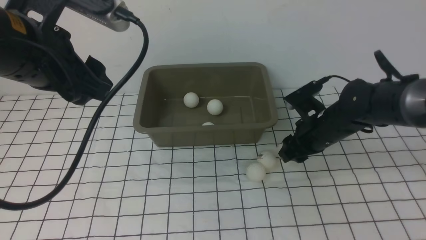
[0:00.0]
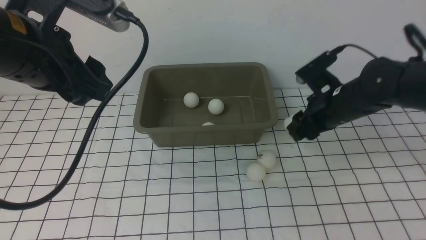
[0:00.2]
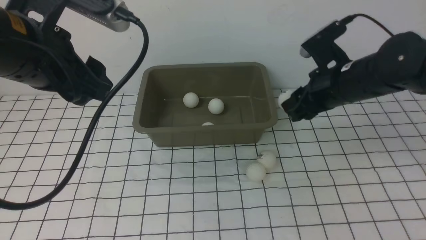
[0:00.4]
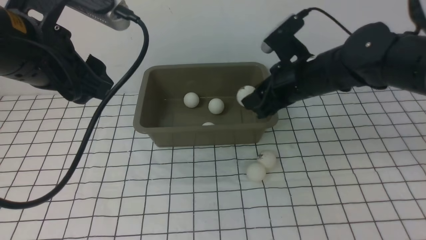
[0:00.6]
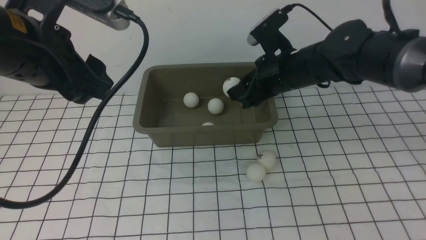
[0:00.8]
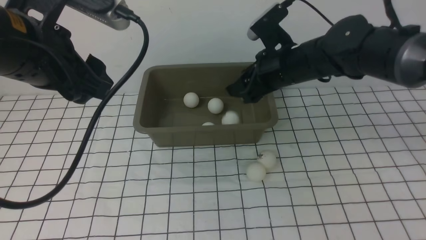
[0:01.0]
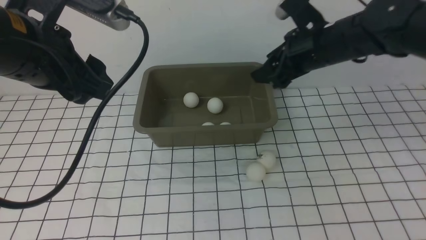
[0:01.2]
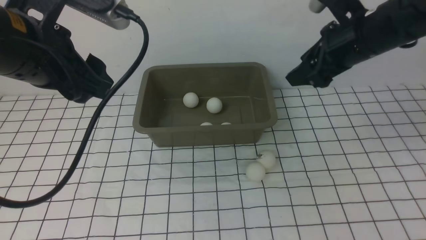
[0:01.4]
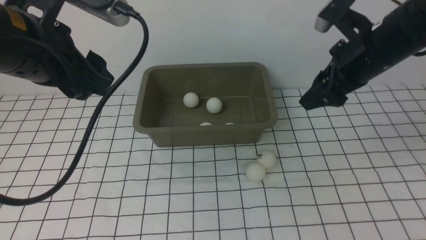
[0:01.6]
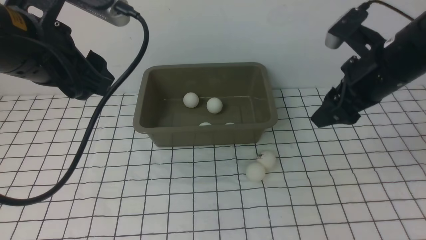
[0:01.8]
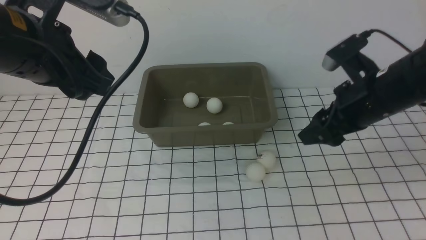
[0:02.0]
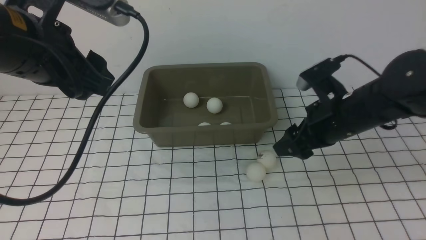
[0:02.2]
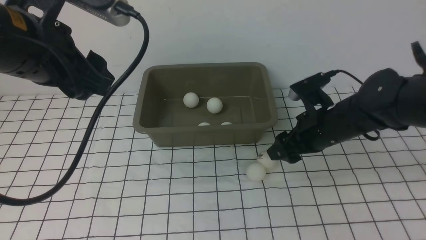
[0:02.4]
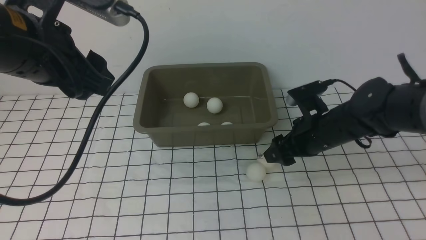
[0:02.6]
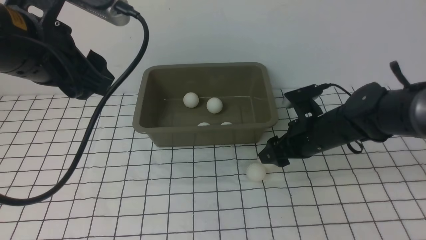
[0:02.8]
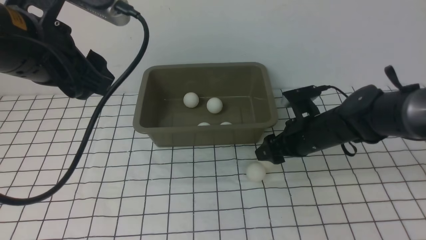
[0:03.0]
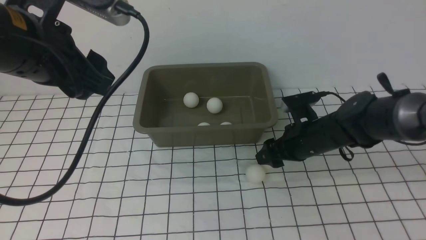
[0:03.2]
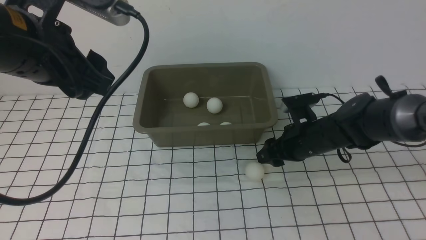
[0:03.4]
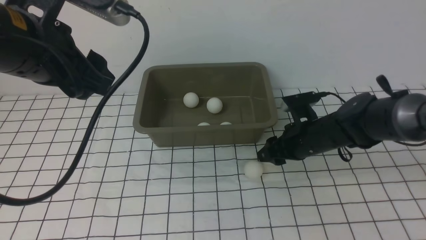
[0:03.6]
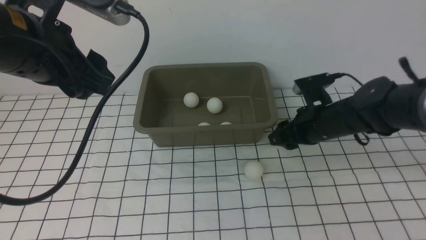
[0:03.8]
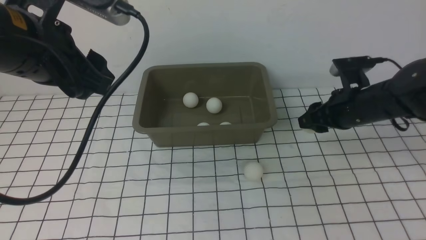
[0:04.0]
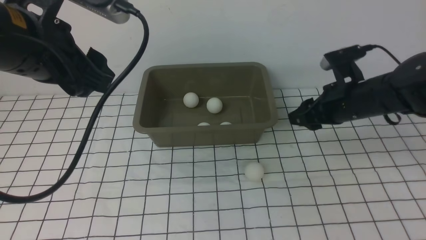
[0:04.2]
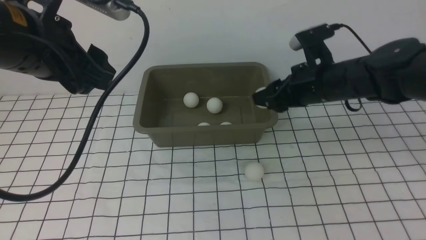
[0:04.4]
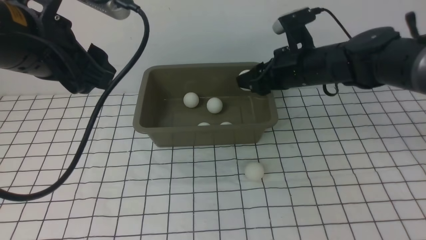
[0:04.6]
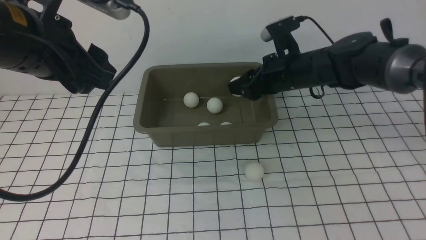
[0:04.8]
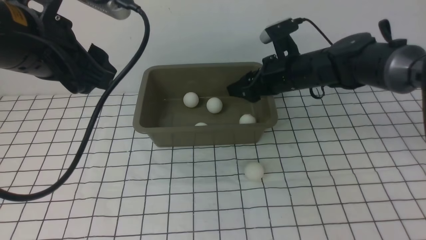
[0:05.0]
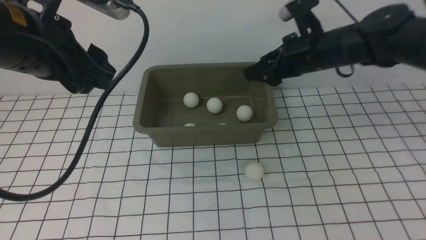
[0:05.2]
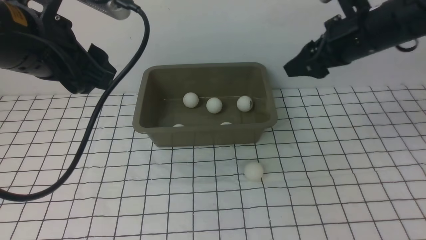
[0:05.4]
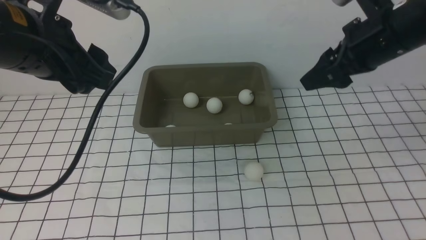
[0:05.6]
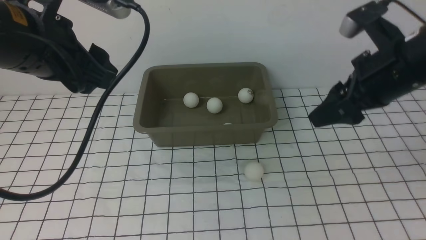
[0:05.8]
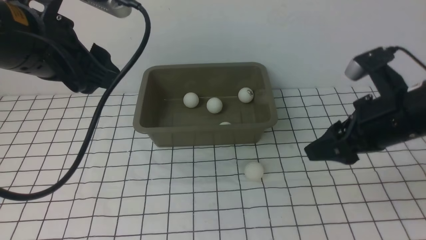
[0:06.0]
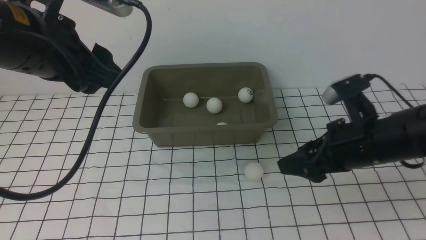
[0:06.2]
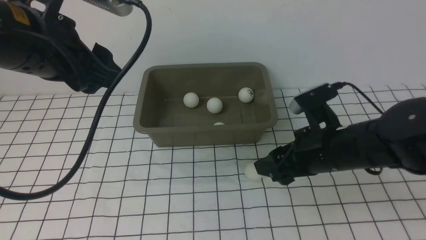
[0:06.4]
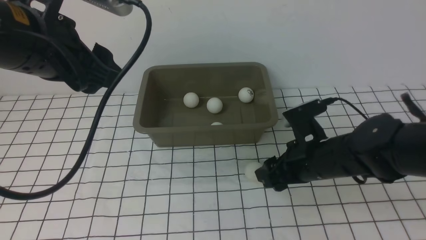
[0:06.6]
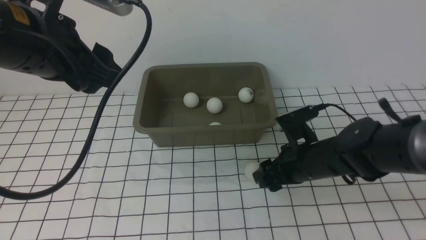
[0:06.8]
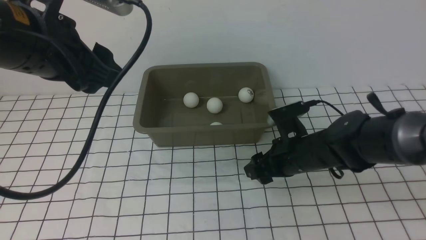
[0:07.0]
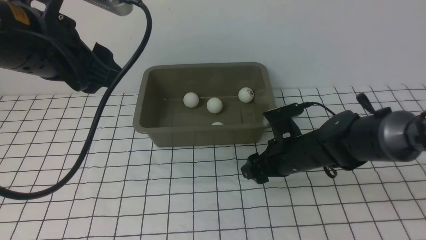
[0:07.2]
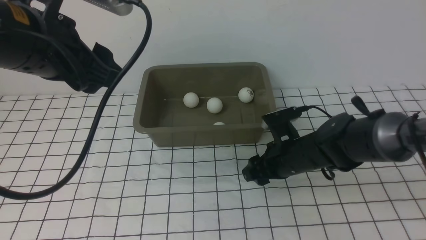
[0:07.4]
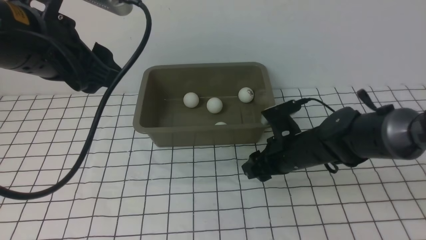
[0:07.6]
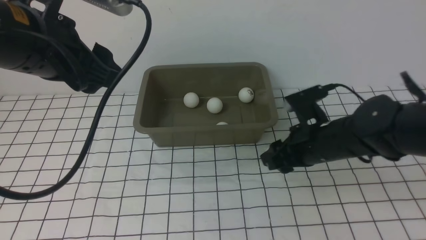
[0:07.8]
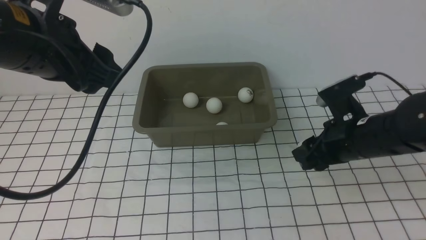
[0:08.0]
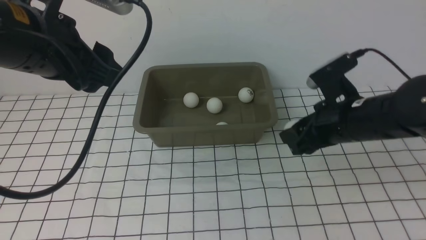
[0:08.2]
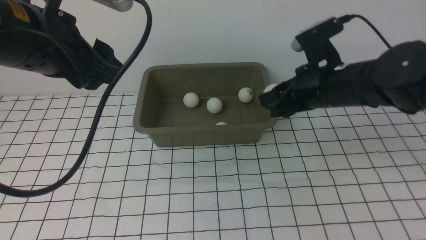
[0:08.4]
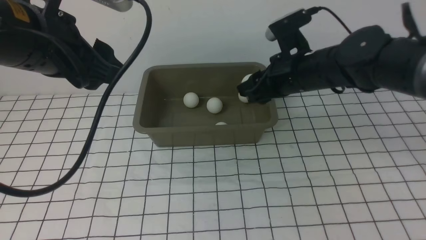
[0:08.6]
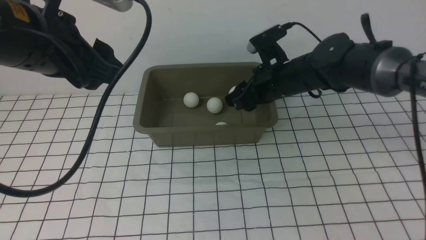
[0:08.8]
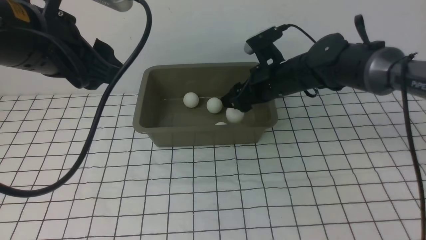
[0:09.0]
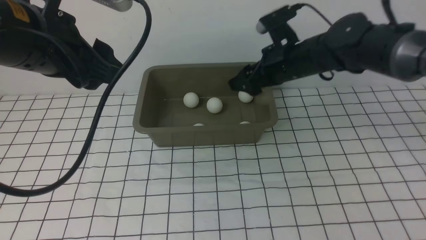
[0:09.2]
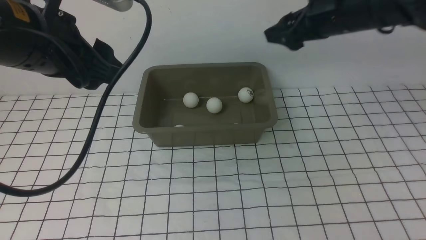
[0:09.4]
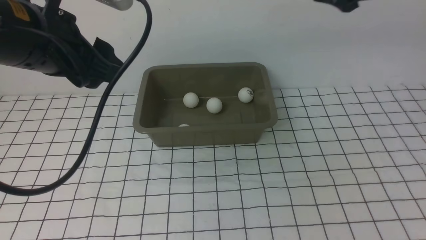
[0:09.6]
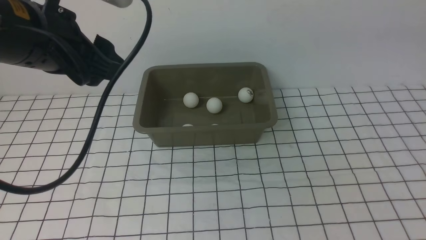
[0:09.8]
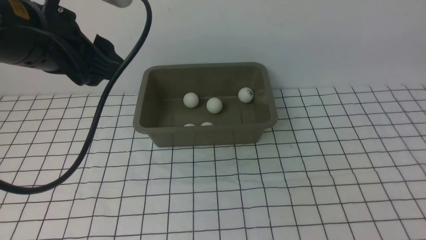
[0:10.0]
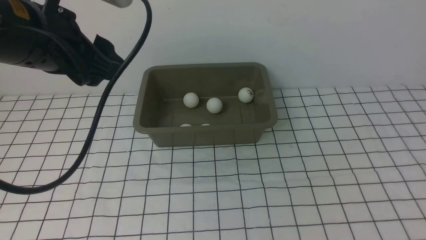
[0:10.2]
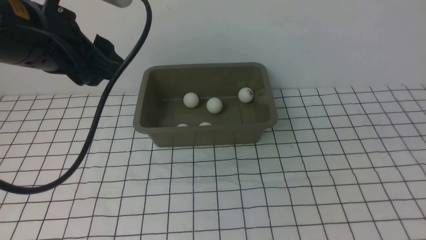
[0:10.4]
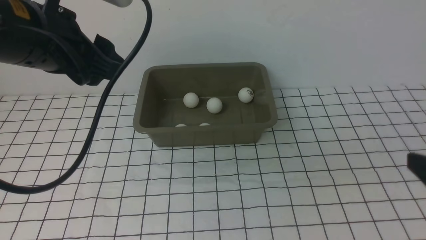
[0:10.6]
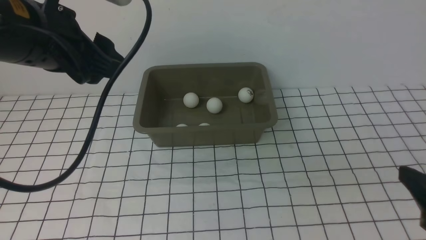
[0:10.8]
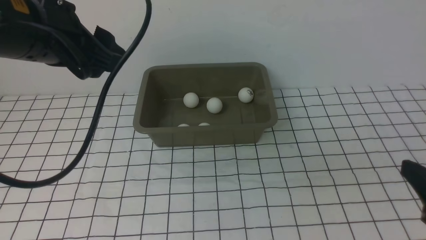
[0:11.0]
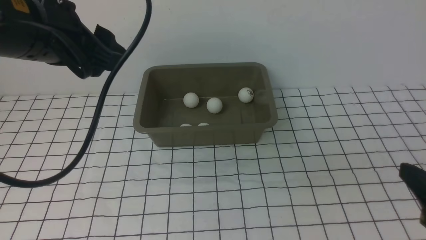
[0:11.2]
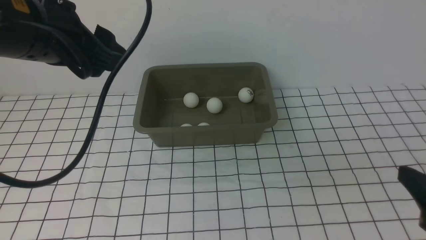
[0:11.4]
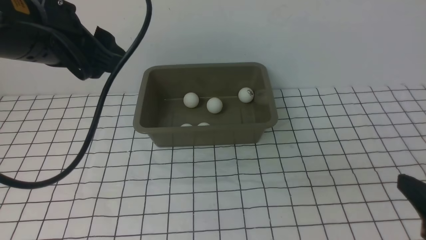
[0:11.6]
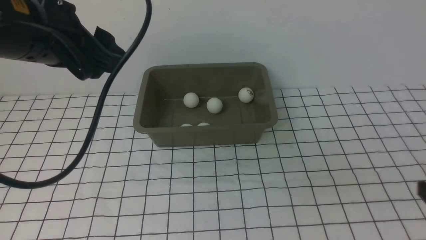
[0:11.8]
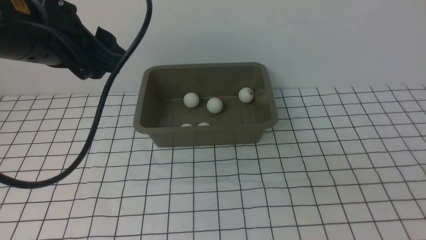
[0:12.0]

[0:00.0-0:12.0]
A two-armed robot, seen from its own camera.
Step, 0:00.4 to 0:01.0: use the right arm to put the table tennis ball into the box.
Step, 0:01.4 to 0:03.8: use the right arm to clamp the table tennis ball closest to it.
Step, 0:04.0 to 0:05.0: use the right arm to put the table tennis ball into the box.
Step, 0:05.2 to 0:07.6: use the right arm to clamp the table tennis ball closest to it.
Step, 0:08.0 to 0:09.0: use the right arm to put the table tennis ball into the box.
0:00.0 to 0:01.6: The right gripper moves upward, some 15 cm, and opens up.
0:01.6 to 0:03.0: The right gripper shifts roughly 15 cm downward.
0:03.0 to 0:04.4: The right gripper moves upward, roughly 10 cm, and closes up.
0:04.4 to 0:06.0: The right gripper is displaced backward and upward by approximately 10 cm, and opens up.
0:06.0 to 0:07.6: The right gripper goes roughly 15 cm downward and to the left, and closes its fingers.
0:07.6 to 0:09.0: The right gripper shifts approximately 15 cm forward and upward, and opens its fingers.
0:09.0 to 0:10.4: The right gripper goes about 35 cm backward, to the right and upward.

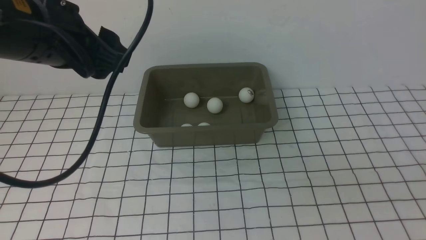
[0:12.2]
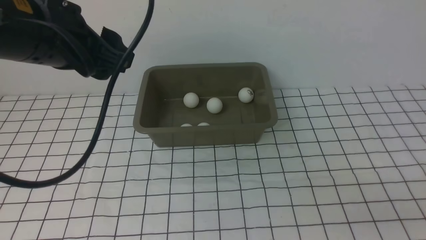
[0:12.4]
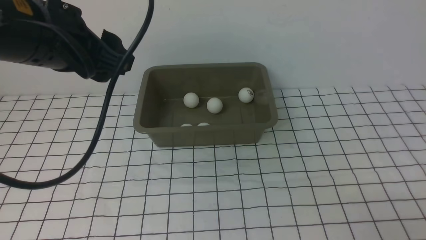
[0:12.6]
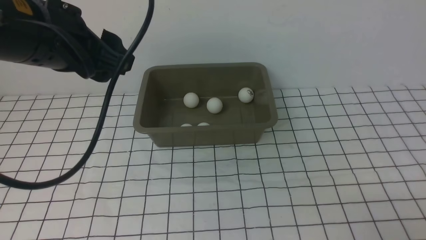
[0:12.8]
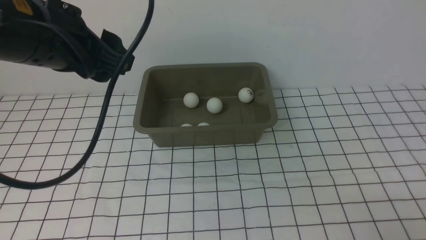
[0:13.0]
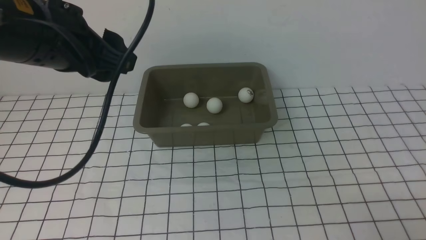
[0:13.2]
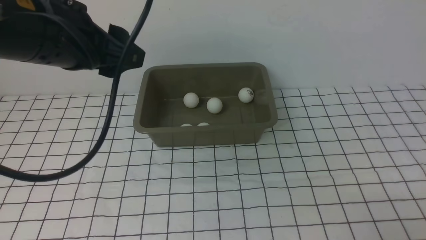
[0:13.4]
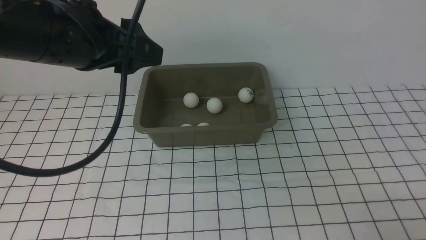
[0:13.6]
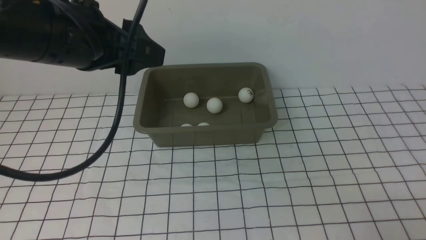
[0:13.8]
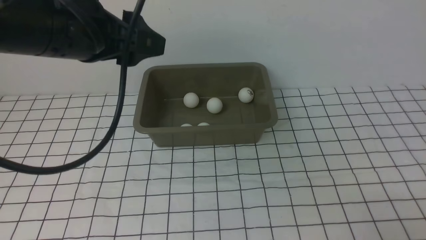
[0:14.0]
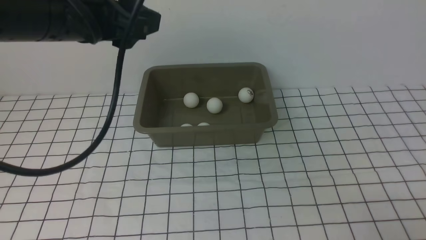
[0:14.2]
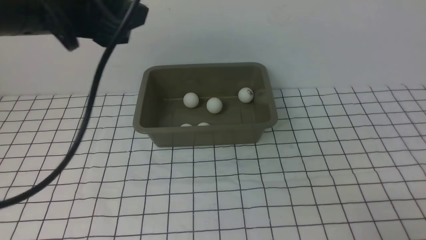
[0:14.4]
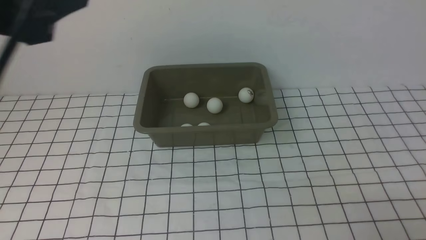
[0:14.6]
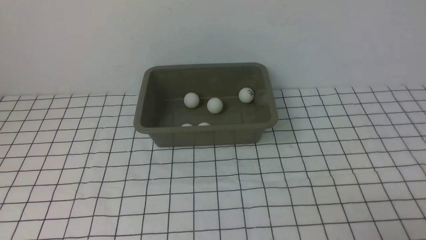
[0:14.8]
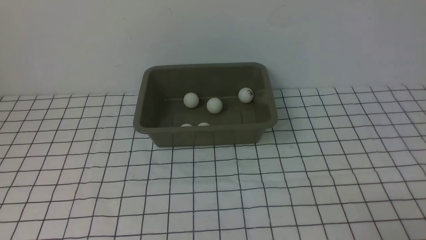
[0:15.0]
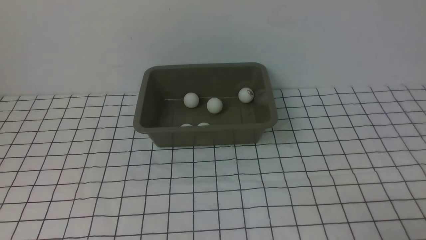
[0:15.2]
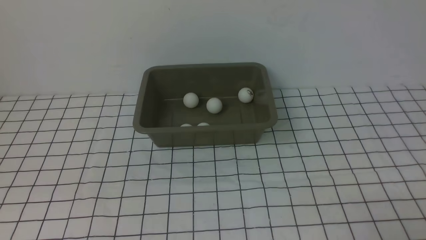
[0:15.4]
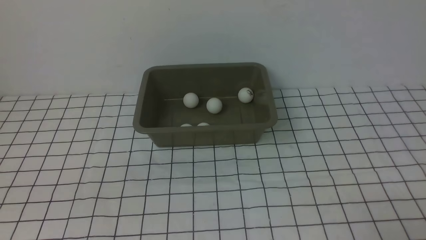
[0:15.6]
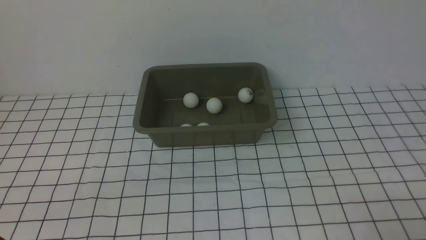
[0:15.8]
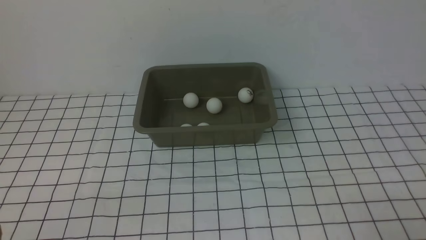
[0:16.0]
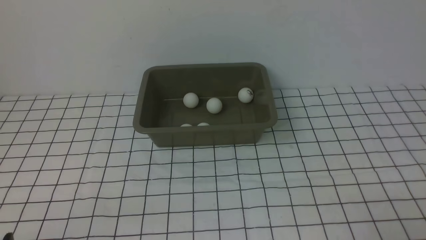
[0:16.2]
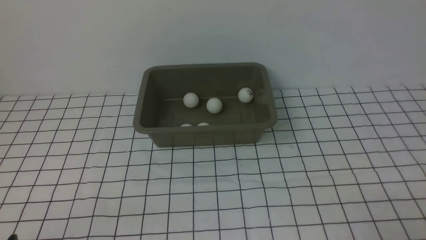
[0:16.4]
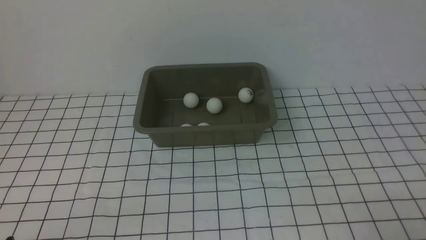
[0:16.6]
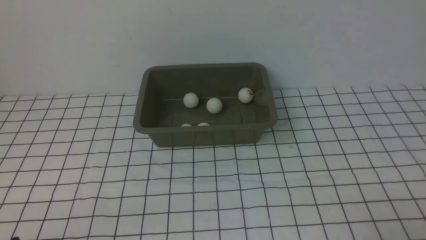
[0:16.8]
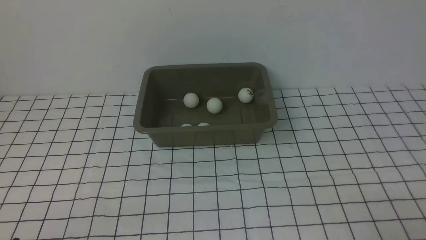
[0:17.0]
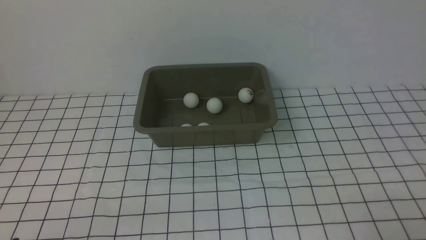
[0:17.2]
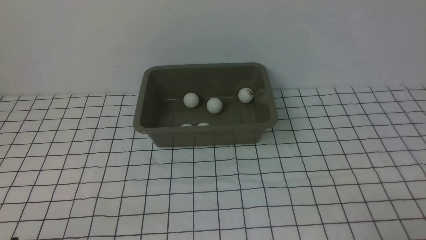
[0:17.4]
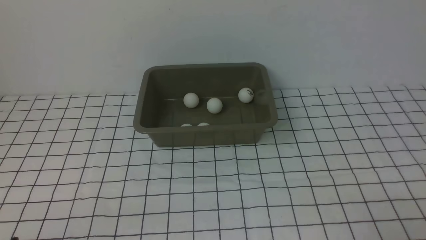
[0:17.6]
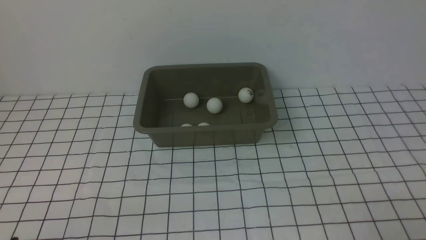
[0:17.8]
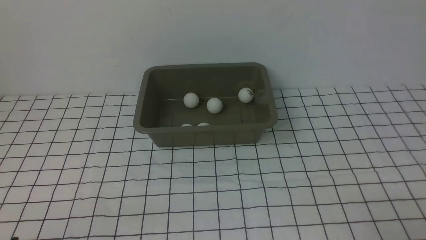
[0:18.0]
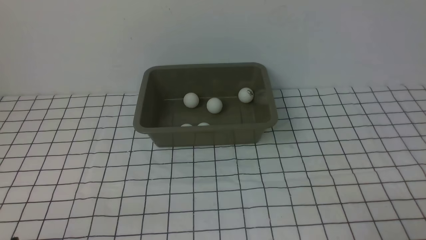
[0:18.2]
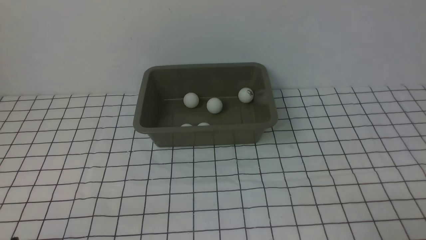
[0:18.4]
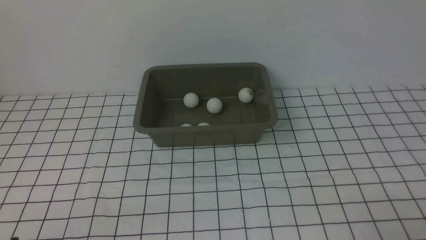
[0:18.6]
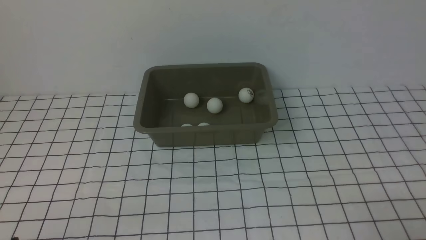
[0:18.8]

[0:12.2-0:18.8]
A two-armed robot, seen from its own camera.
0:12.2 to 0:13.8: The right gripper moves downward, some 5 cm.
0:13.8 to 0:15.4: The left gripper shifts about 25 cm backward, to the left and downward.
